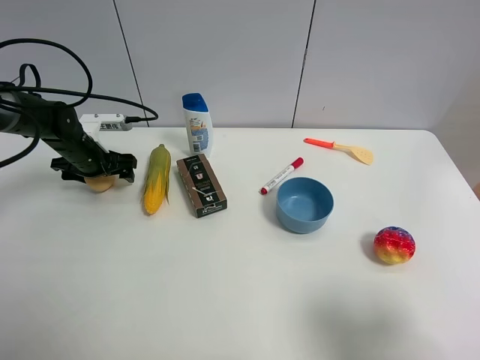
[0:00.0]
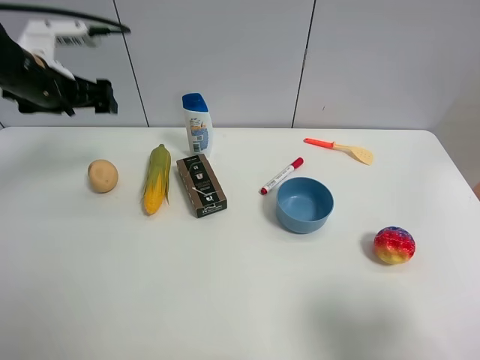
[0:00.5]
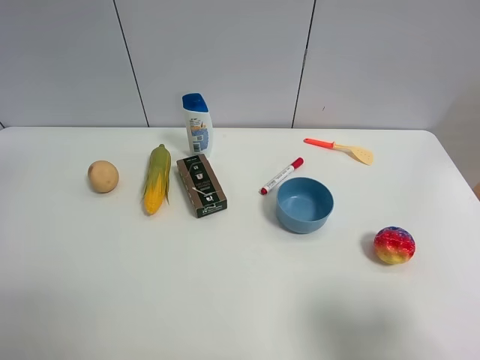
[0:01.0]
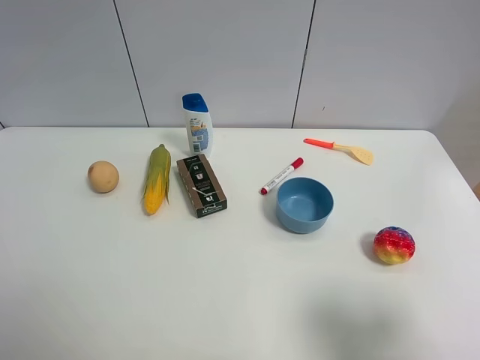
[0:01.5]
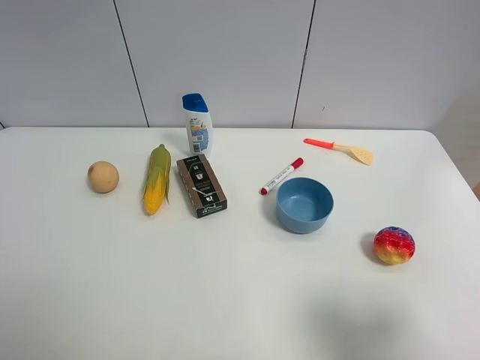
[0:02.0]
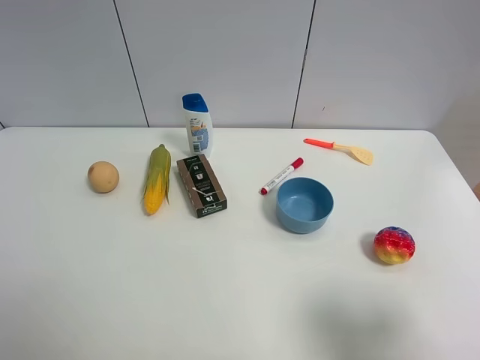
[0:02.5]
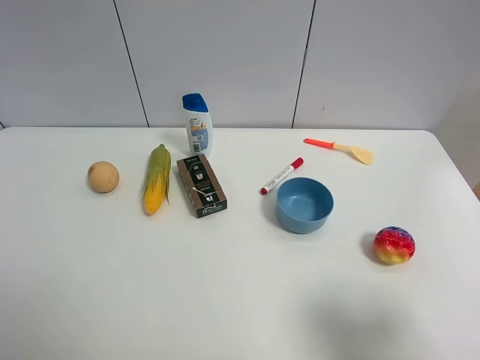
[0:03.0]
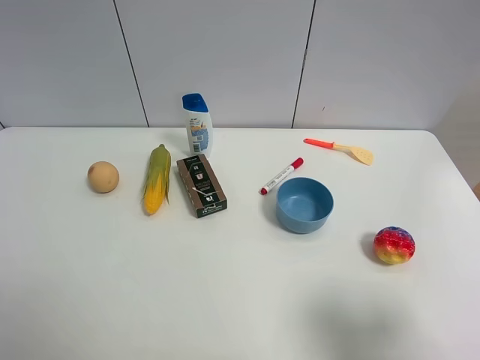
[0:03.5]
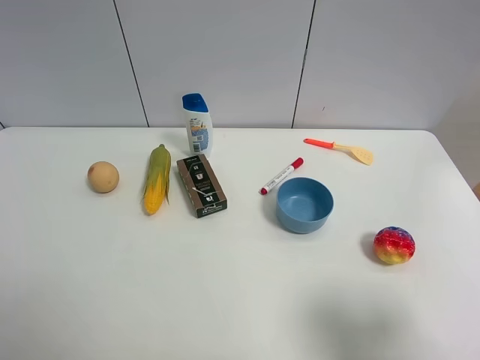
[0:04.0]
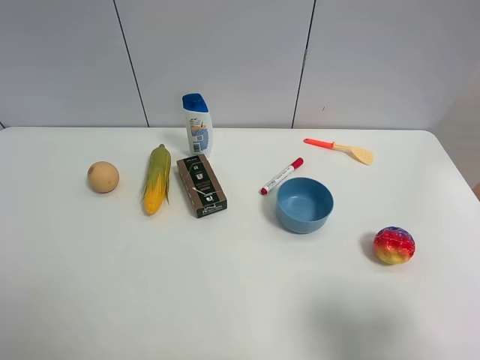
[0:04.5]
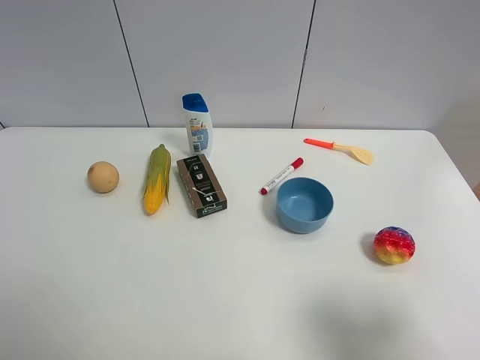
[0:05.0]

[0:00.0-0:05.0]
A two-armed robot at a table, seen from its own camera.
Task of the whole recording: the gripper move the object.
0:00.0 to 0:02.5: The left gripper shifts roughly 50 cm backward and upward.

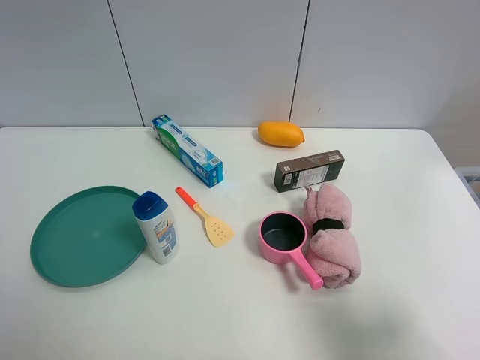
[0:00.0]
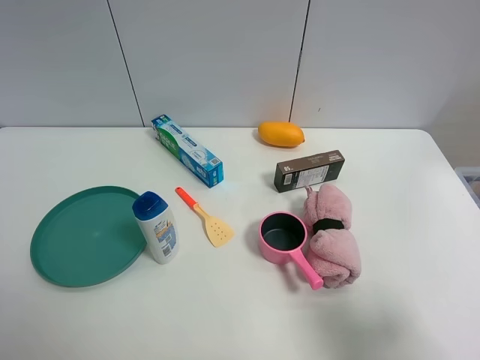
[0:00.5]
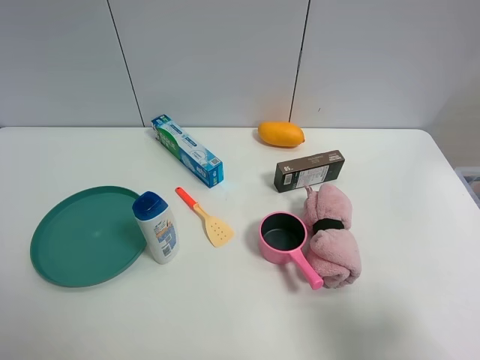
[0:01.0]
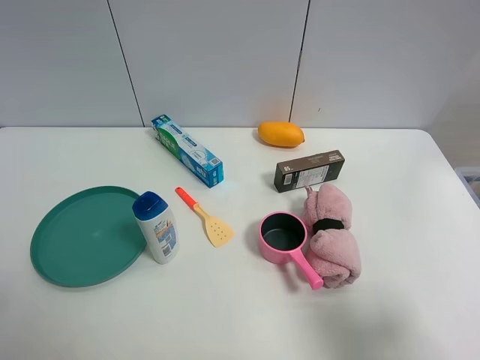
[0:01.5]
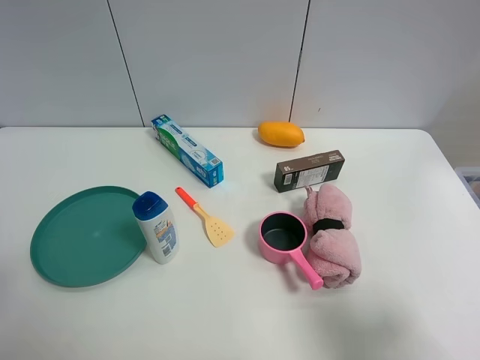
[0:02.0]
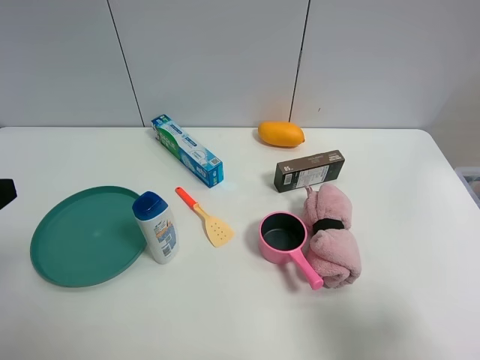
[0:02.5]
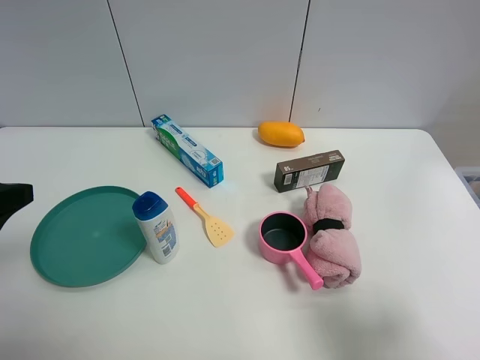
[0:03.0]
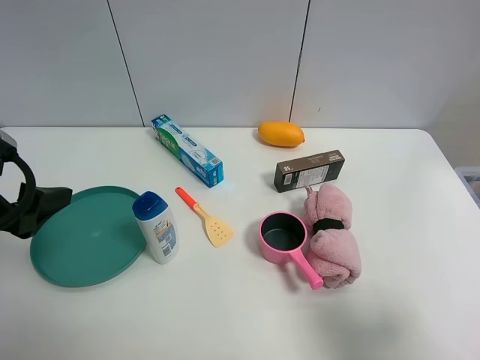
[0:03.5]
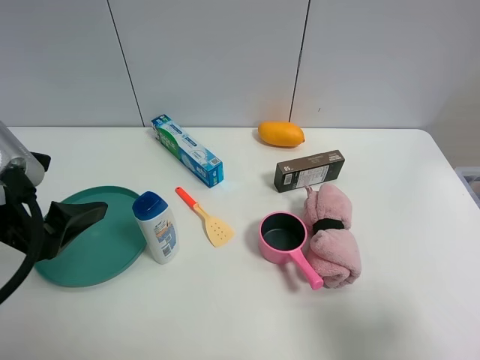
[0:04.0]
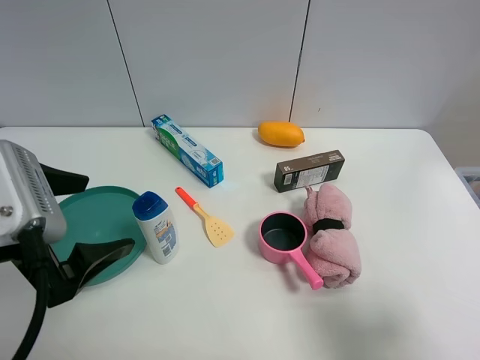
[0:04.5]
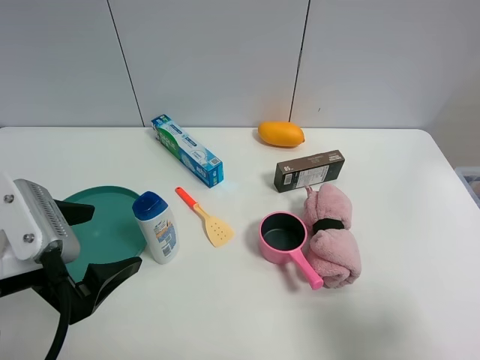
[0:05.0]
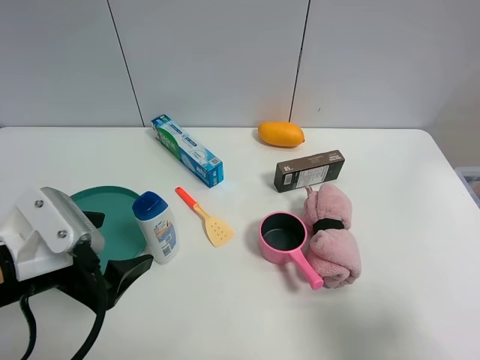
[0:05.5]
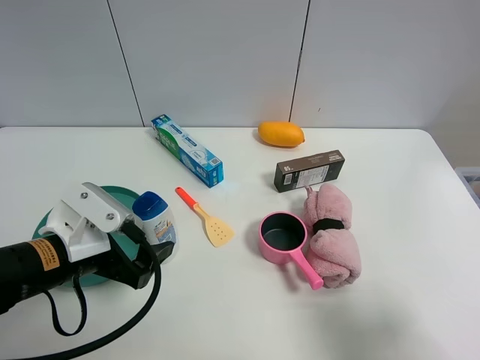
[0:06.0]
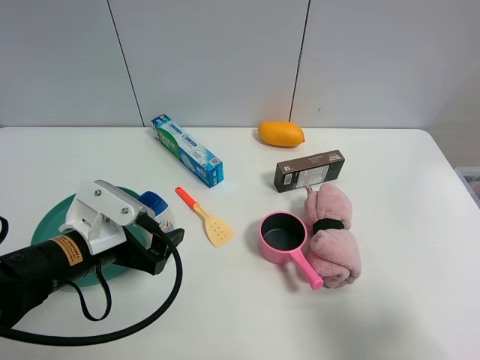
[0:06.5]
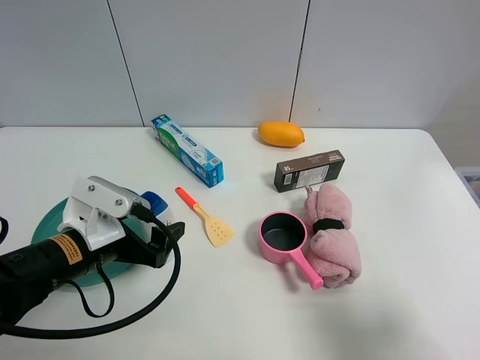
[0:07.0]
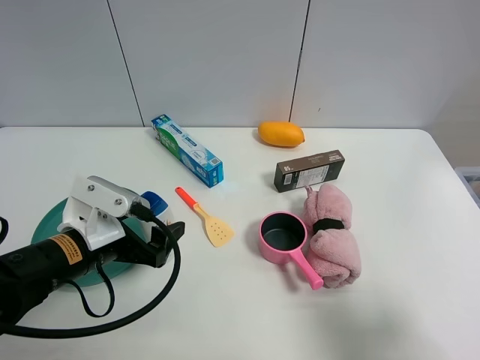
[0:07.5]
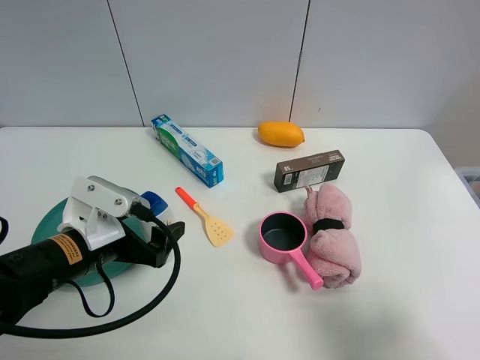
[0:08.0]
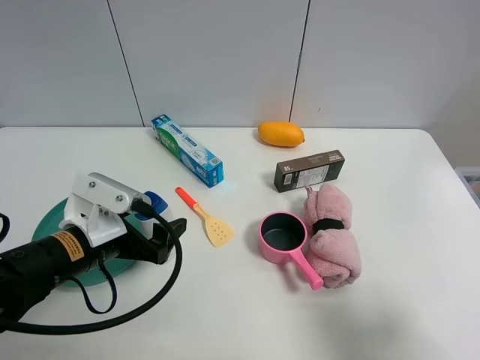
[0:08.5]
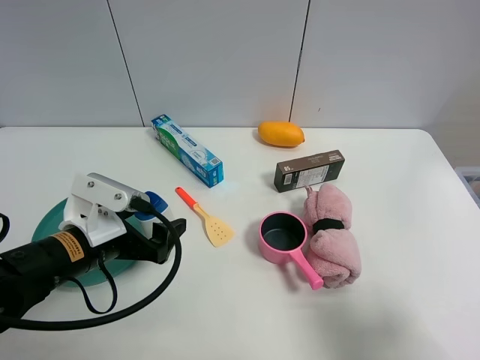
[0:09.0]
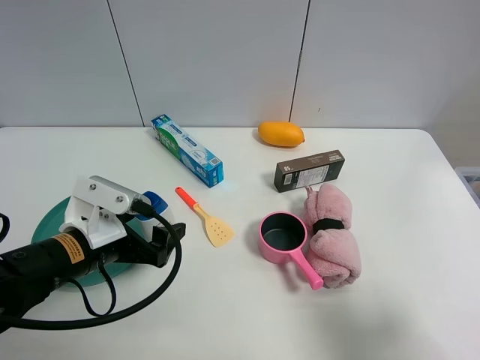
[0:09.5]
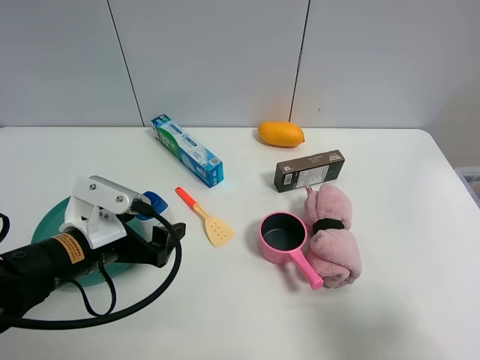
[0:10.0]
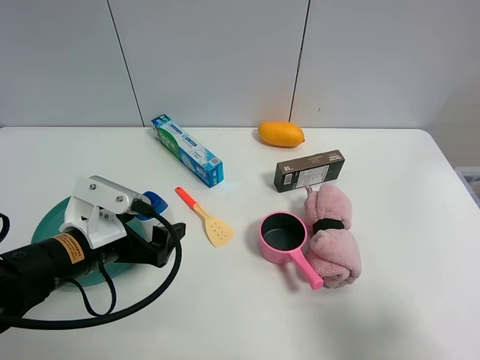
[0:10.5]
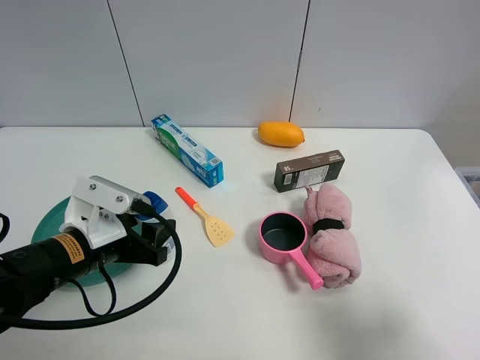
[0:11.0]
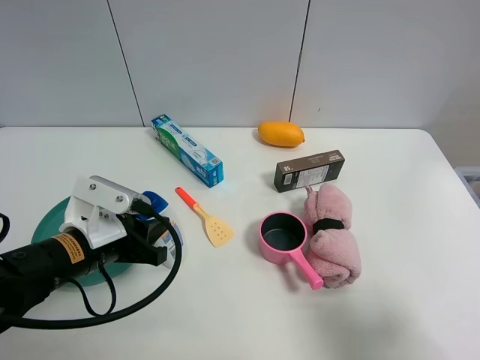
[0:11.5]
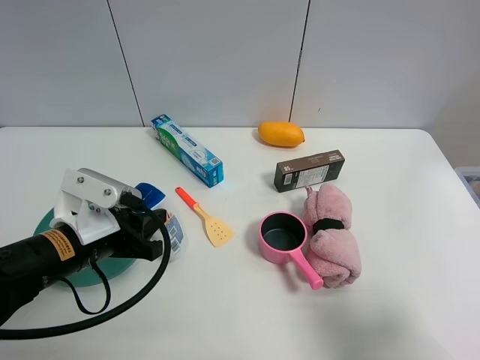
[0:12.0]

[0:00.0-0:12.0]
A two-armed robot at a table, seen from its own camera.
Task of the whole recording: the gripper move the object.
Step, 0:00.0 to 0:11.0: Grasp the shampoo with the left gripper.
0:02.0 to 0:04.0: The left gripper shifts some 10 cm forward and to the right.
0:04.0 to 0:06.0: The left gripper travels downward by about 10 cm.
0:06.0 to 0:08.0: There are only small adjustments of the grippers.
0:08.0 to 0:10.0: Neither gripper changes place.
0:10.0 to 0:12.0: The left gripper closes.

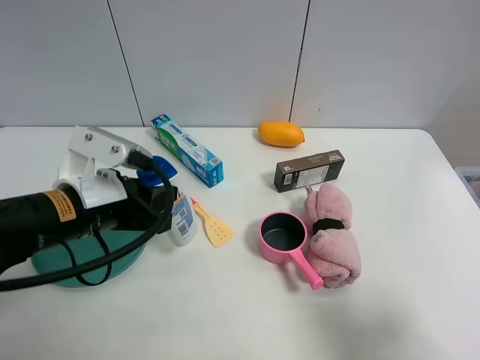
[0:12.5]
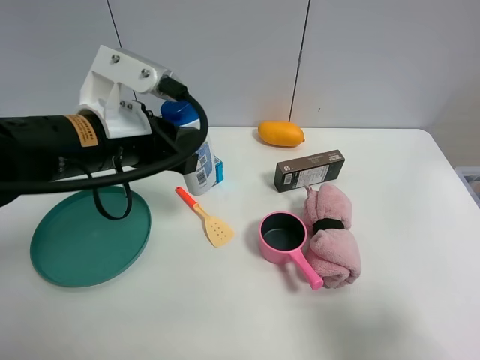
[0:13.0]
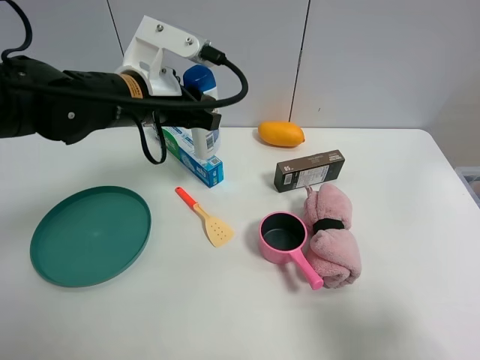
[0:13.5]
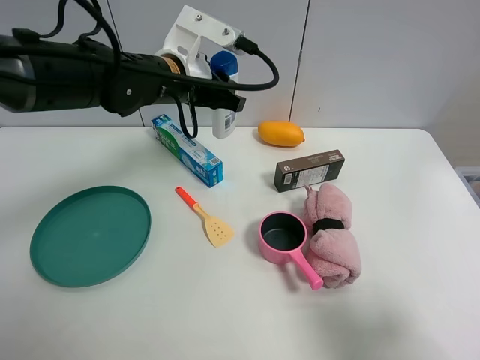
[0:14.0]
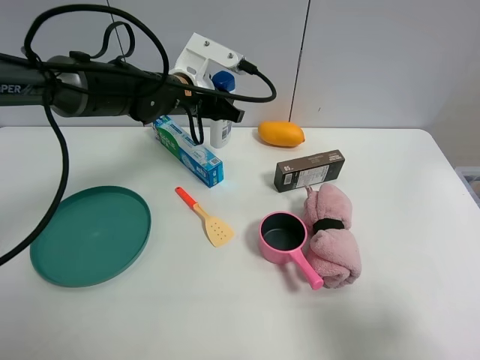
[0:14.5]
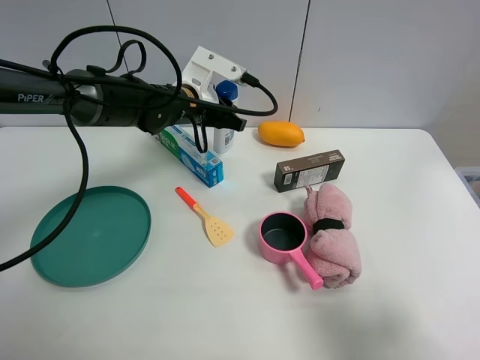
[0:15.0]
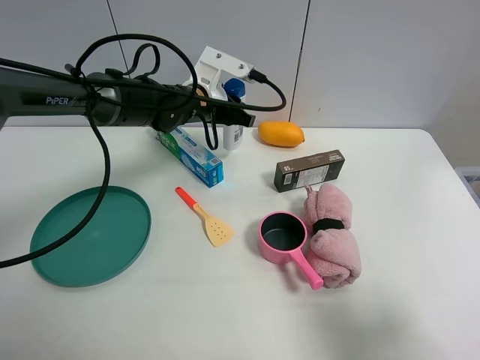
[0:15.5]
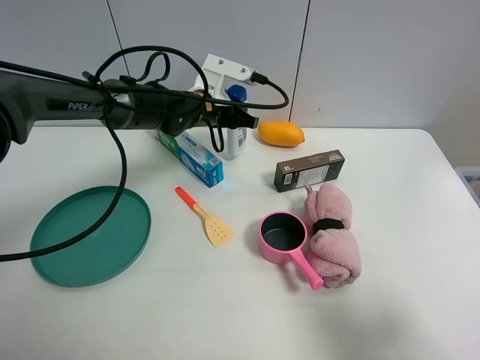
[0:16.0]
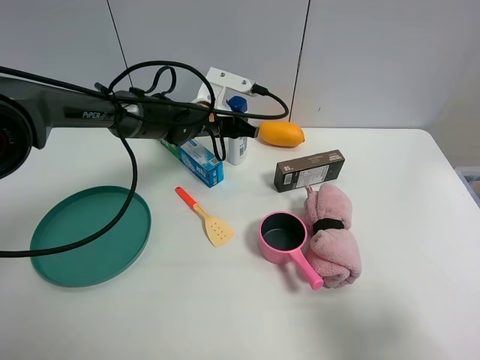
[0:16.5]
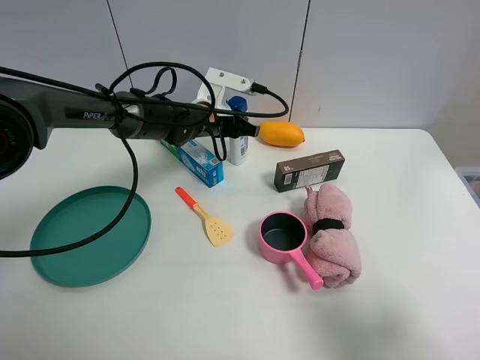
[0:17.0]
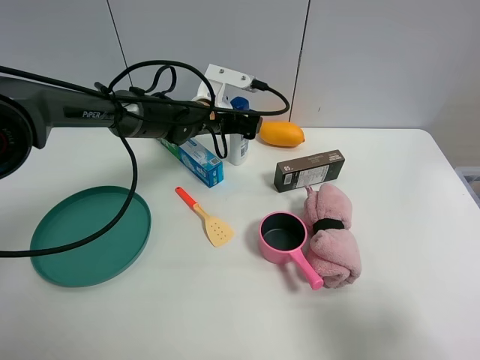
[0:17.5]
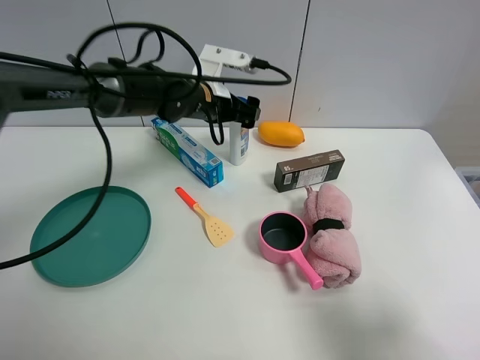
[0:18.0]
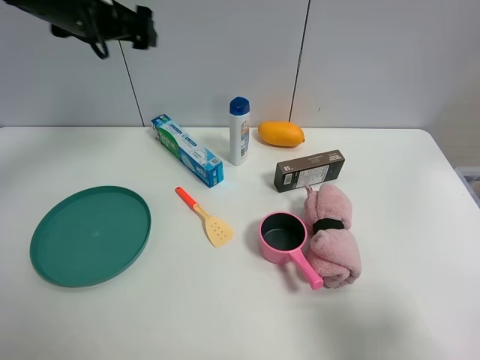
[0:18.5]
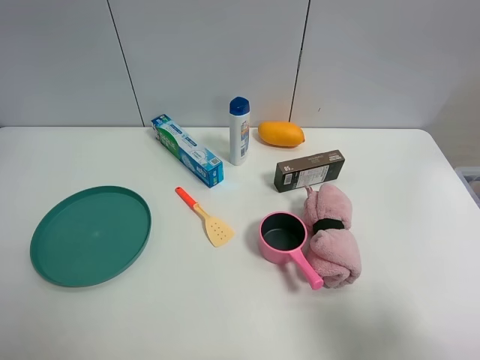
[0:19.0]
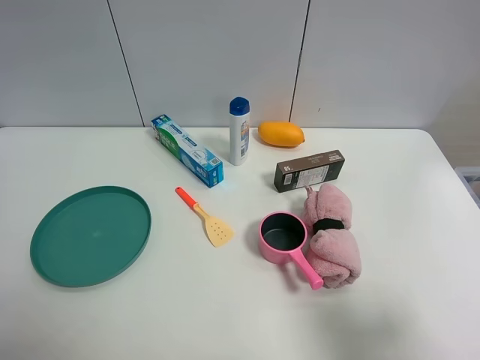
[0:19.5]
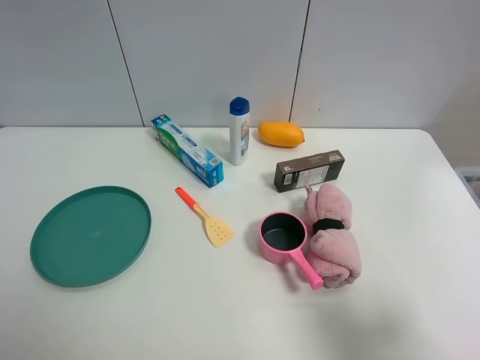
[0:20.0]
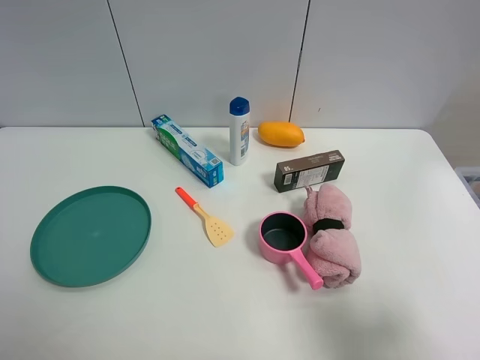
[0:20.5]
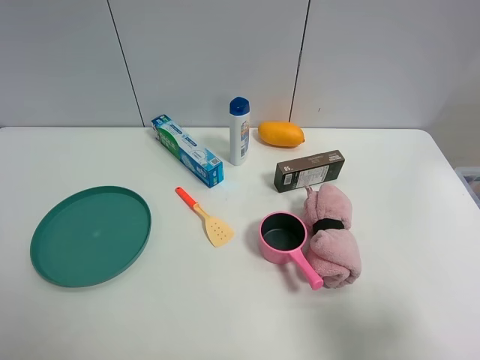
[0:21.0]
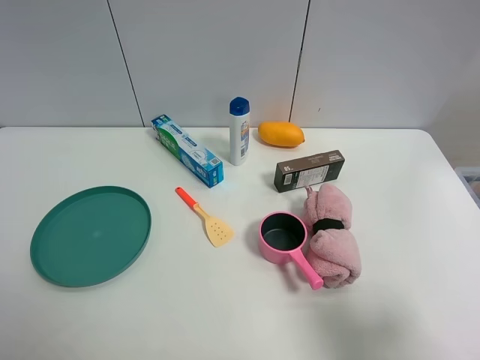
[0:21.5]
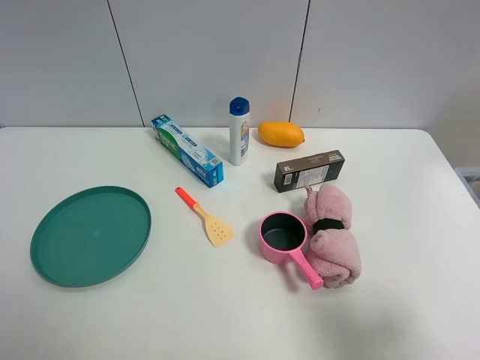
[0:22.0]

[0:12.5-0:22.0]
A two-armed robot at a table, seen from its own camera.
Task of the whole recording: the gripper move the object.
Step, 0:12.5 to 0:17.5: Place the shampoo on the table with the left gripper.
0:12.5 to 0:14.5: The left gripper is displaced forward and to the right by approximately 25 cm.
0:14.5 to 0:16.5: The left gripper shifts about 5 cm downward.
0:16.5 to 0:18.0: The left gripper is displaced upward by roughly 5 cm, and opens its fingers.
0:18.0 to 0:20.0: The left gripper goes roughly 50 cm backward and to the left.
